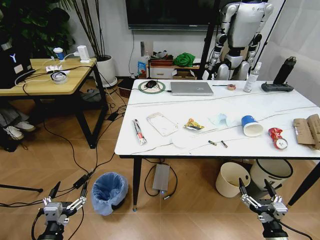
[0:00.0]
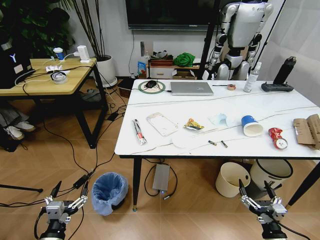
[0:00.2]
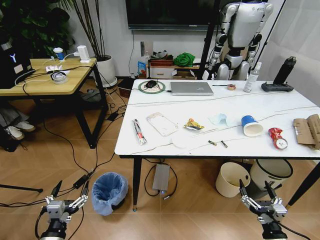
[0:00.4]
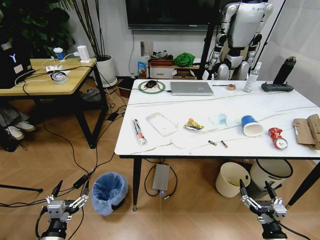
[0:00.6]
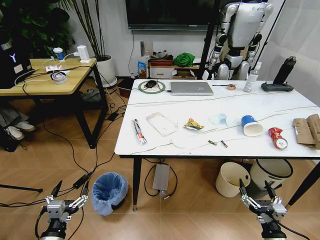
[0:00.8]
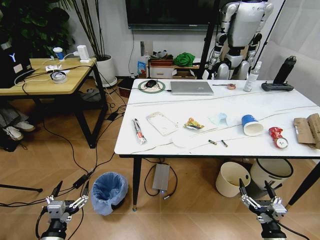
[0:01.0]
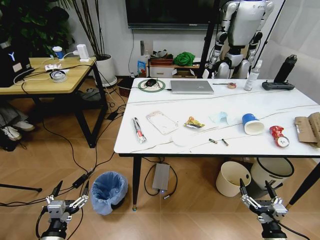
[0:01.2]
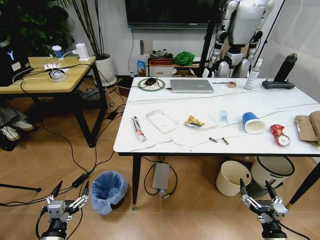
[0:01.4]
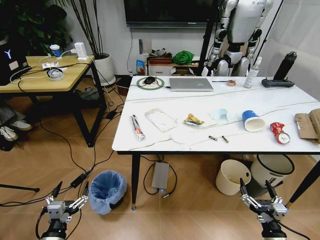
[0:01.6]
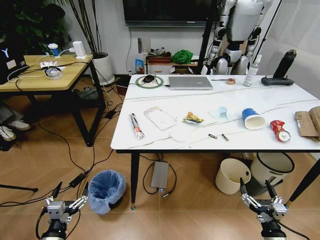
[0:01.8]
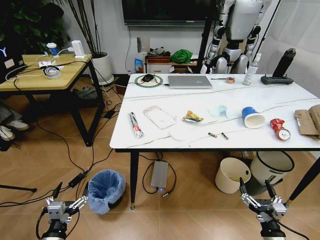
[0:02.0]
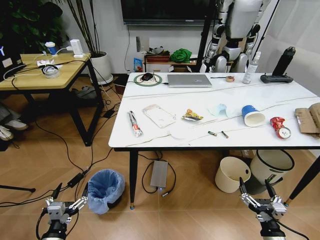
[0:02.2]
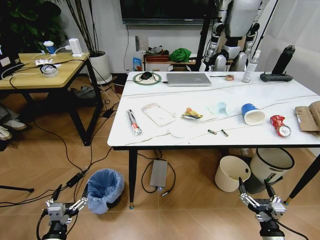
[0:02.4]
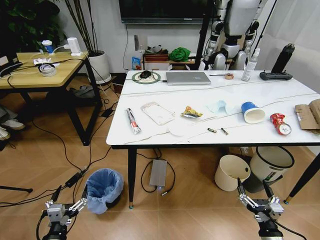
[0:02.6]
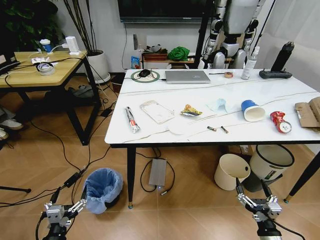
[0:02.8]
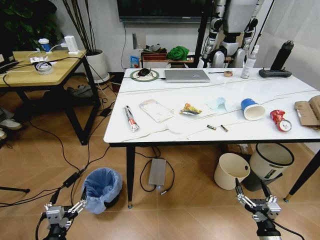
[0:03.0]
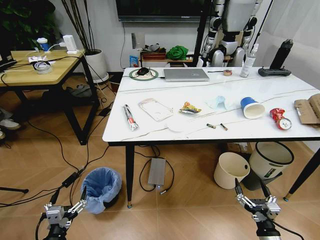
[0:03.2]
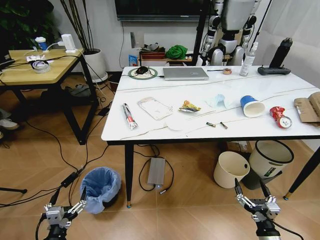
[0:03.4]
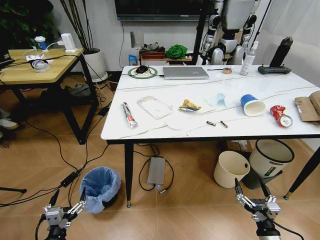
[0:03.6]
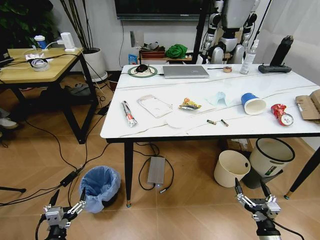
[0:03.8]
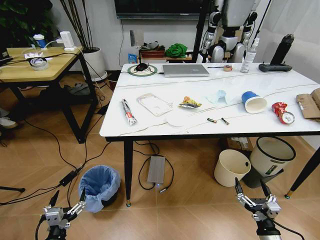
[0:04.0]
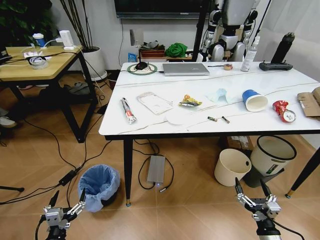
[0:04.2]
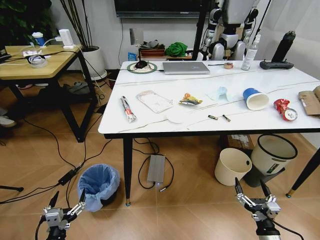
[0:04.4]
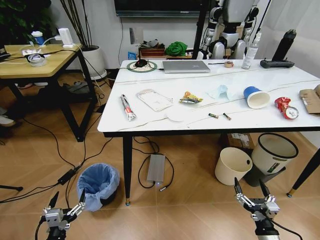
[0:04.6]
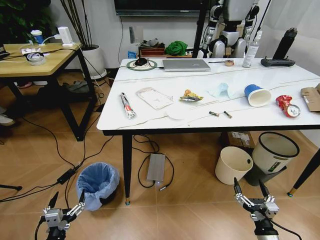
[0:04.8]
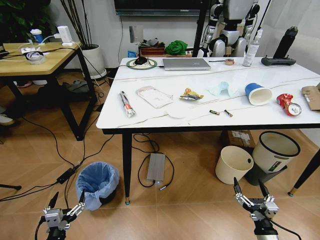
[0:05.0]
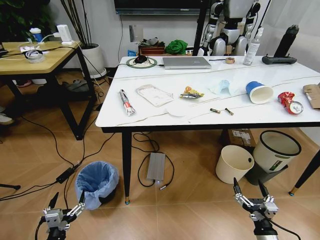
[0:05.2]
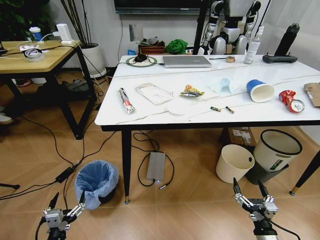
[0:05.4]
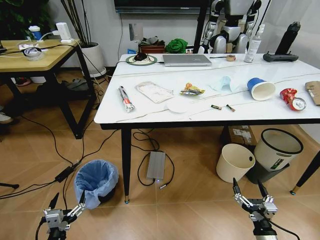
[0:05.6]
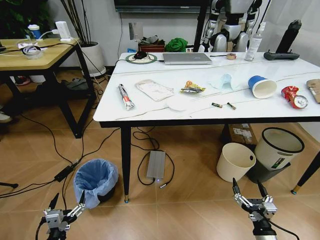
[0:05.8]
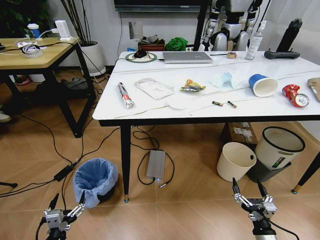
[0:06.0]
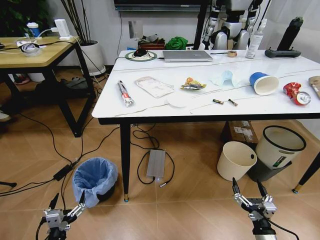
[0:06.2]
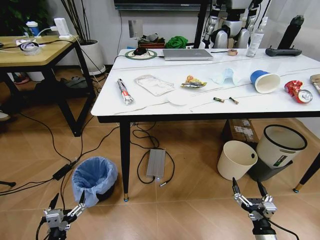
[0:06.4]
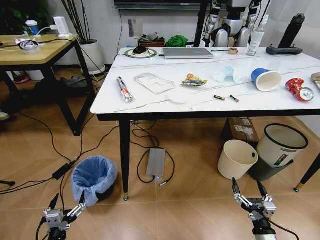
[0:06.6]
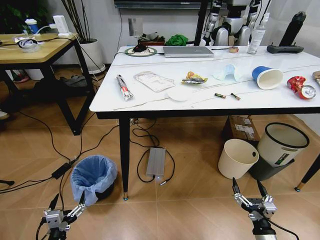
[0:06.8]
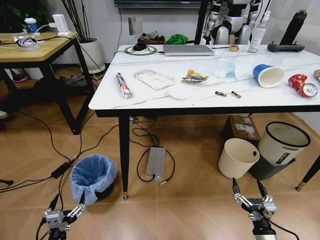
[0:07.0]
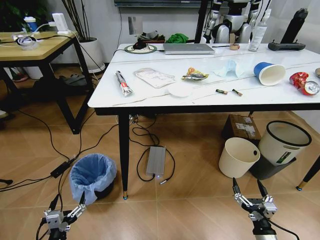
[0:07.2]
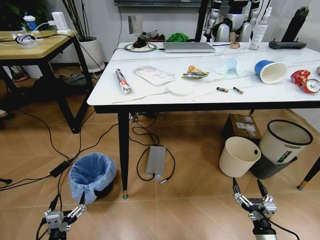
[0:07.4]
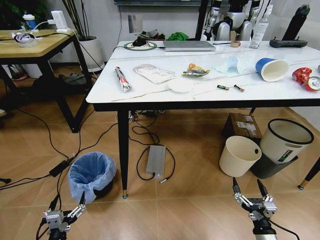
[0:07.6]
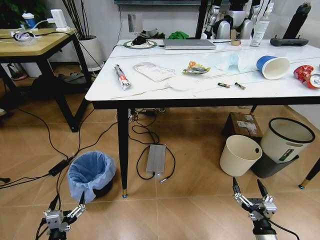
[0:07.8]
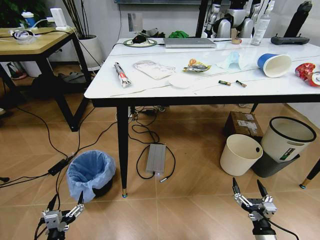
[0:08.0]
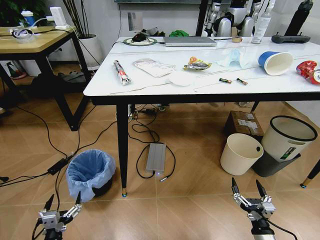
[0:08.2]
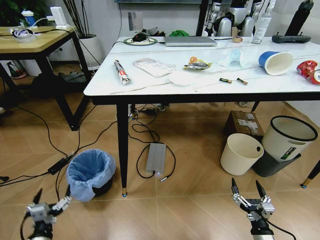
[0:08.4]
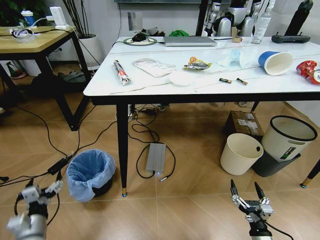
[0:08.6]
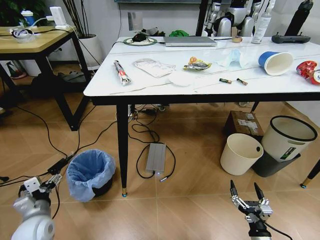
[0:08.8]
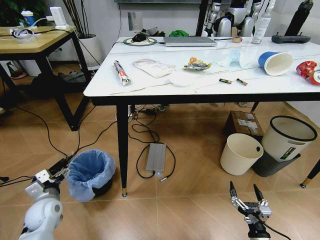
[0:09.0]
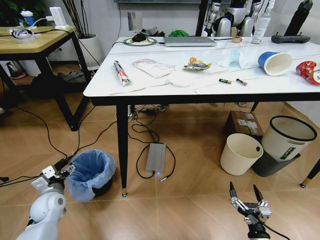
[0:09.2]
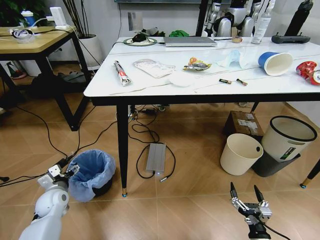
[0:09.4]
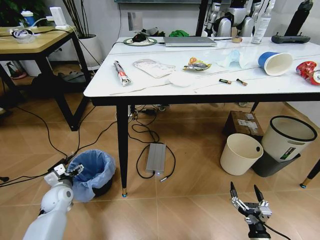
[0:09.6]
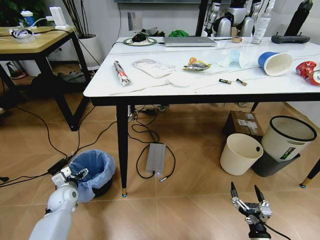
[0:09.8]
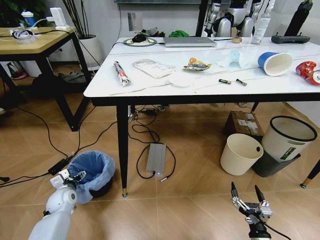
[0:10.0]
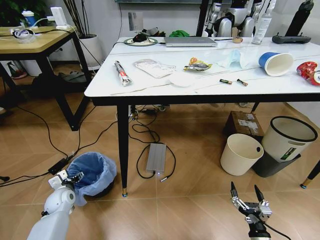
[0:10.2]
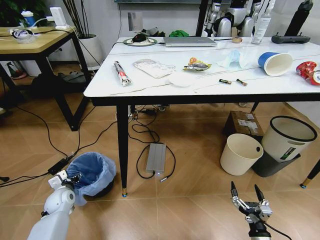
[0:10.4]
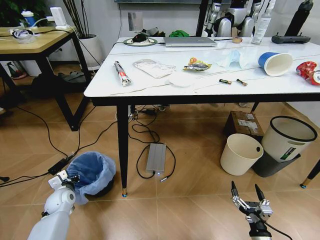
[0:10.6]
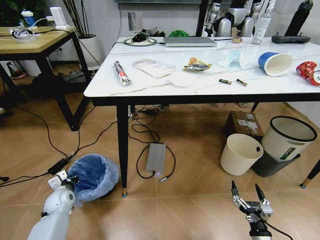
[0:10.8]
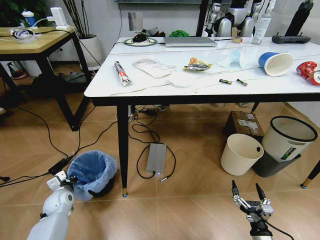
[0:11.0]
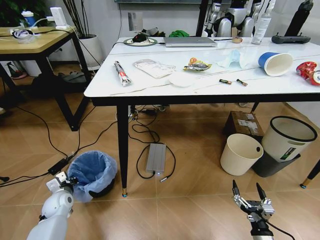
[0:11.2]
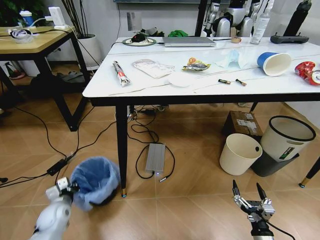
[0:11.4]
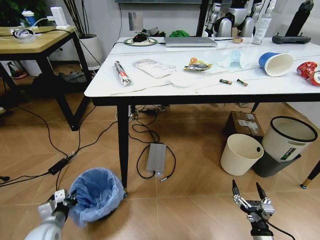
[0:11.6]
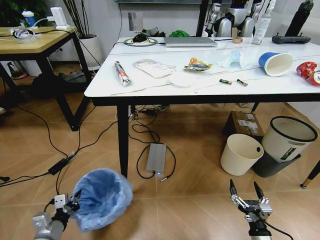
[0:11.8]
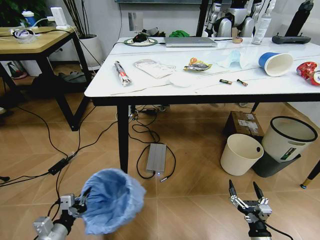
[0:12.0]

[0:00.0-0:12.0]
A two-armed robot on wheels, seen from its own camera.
Task of the whole recording: Pick up the trash bin and place the trash from the table into it.
0:07.6 to 0:09.0: The left gripper goes approximately 20 cm forward.
0:09.0 to 0:10.4: The left gripper moves forward and downward, approximately 10 cm.
0:10.4 to 0:12.0: The left gripper is displaced backward by about 20 cm, and closes up.

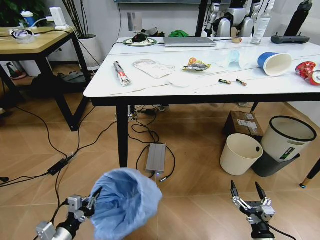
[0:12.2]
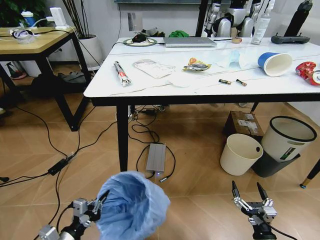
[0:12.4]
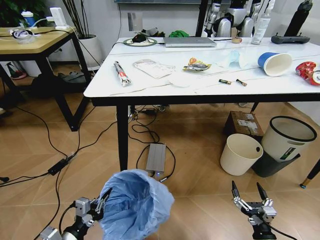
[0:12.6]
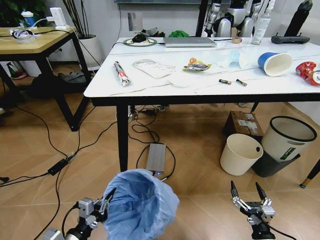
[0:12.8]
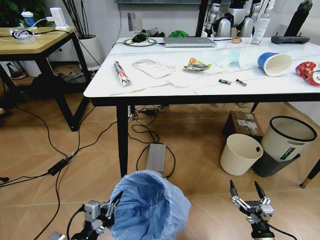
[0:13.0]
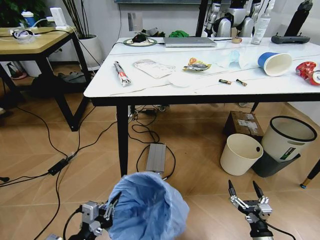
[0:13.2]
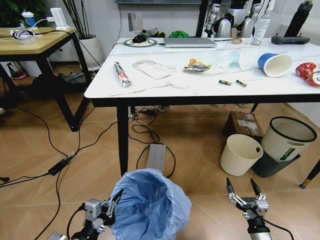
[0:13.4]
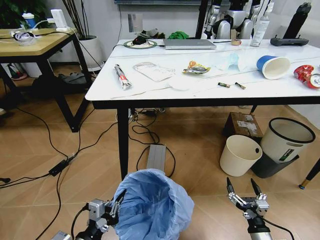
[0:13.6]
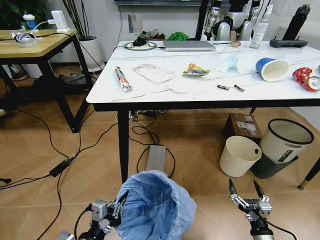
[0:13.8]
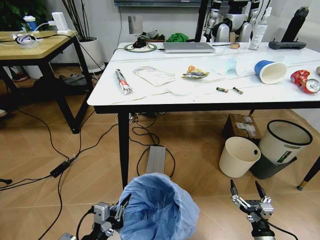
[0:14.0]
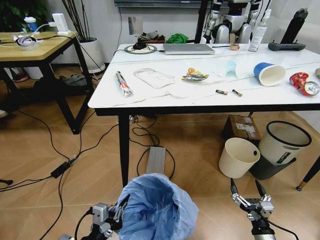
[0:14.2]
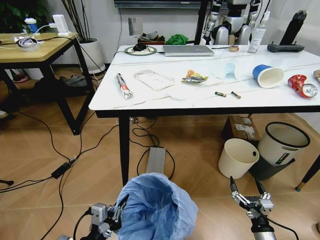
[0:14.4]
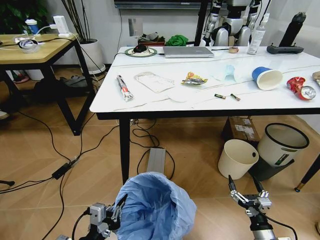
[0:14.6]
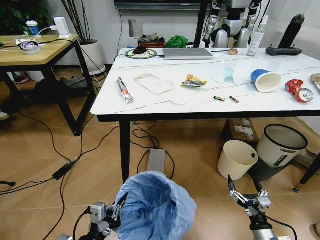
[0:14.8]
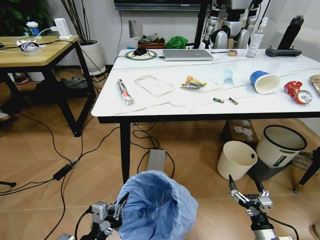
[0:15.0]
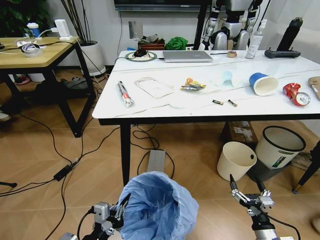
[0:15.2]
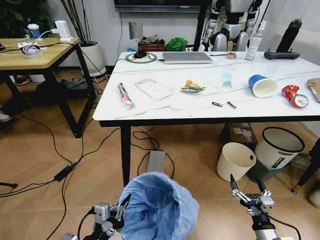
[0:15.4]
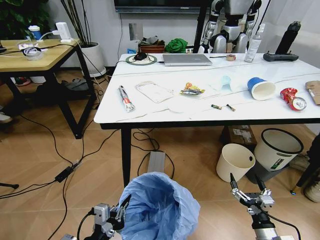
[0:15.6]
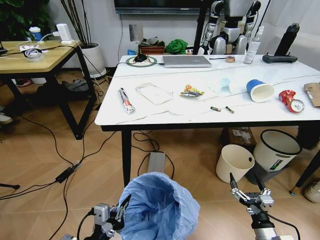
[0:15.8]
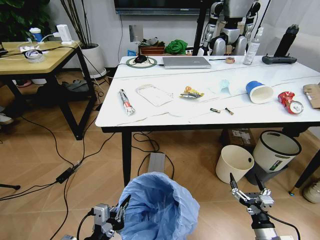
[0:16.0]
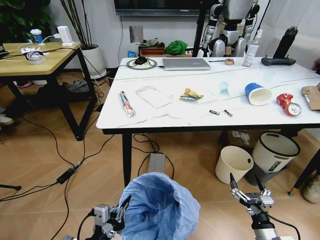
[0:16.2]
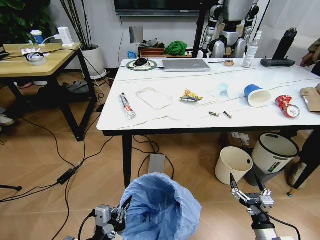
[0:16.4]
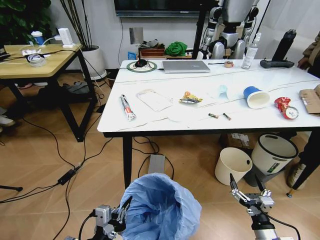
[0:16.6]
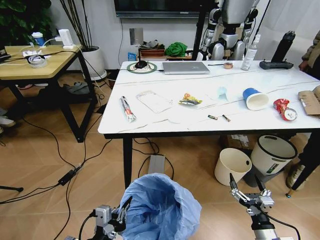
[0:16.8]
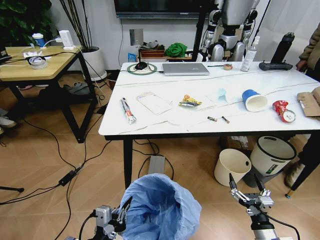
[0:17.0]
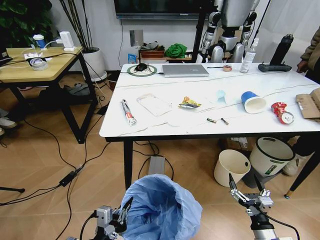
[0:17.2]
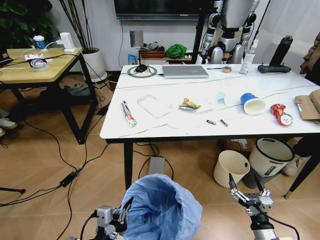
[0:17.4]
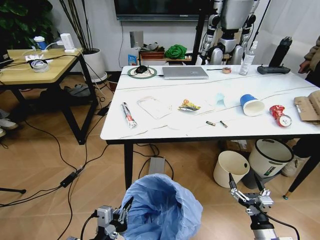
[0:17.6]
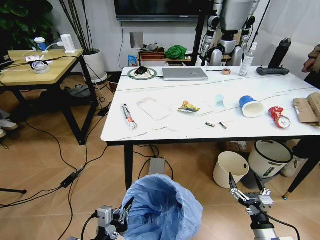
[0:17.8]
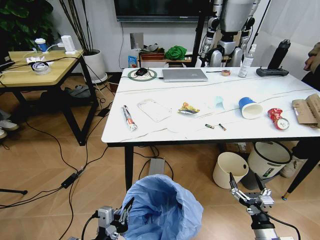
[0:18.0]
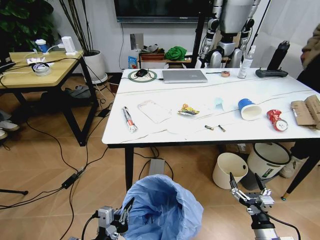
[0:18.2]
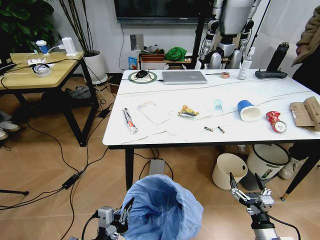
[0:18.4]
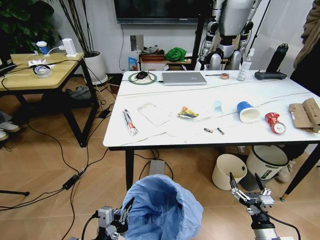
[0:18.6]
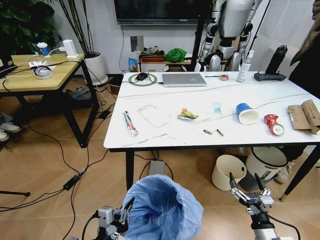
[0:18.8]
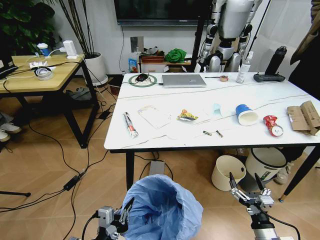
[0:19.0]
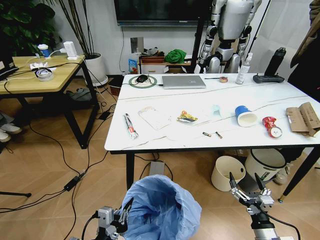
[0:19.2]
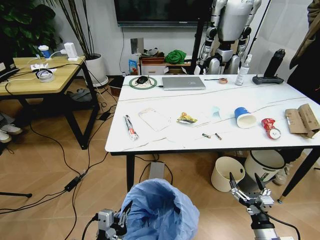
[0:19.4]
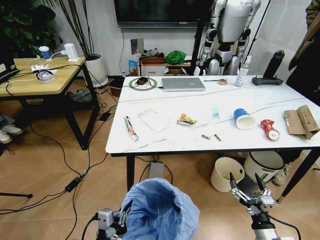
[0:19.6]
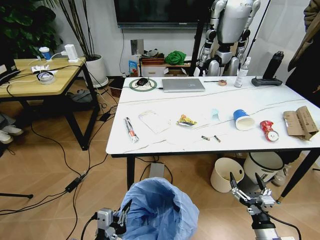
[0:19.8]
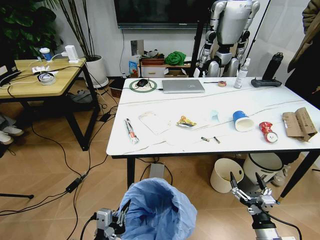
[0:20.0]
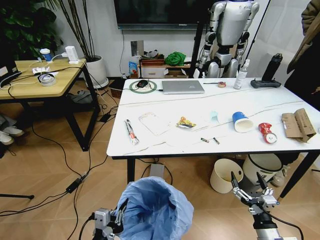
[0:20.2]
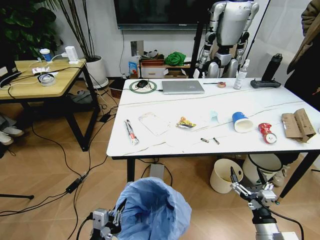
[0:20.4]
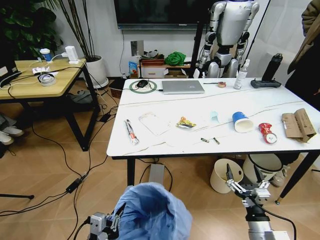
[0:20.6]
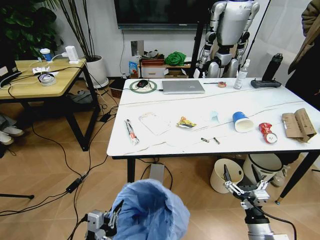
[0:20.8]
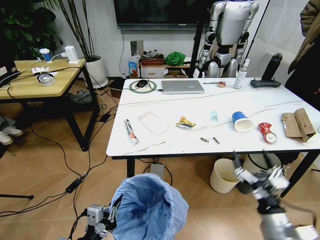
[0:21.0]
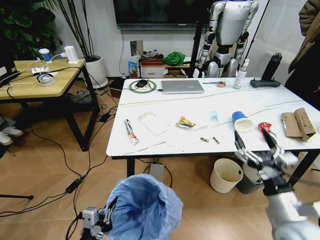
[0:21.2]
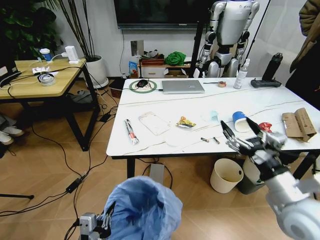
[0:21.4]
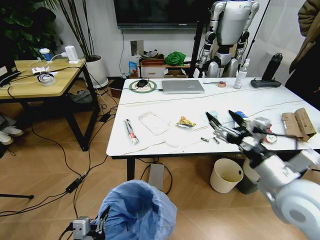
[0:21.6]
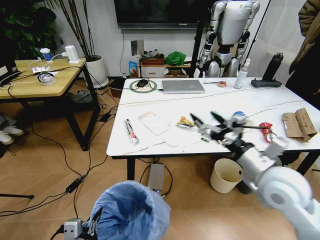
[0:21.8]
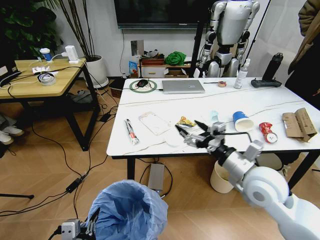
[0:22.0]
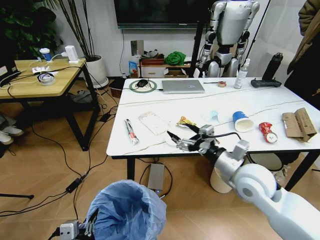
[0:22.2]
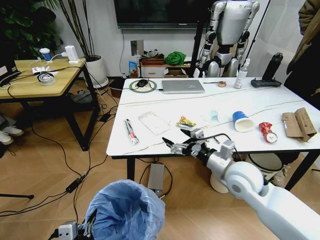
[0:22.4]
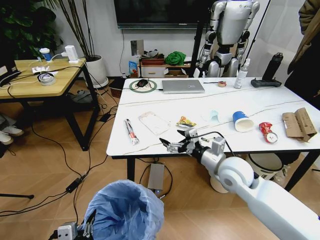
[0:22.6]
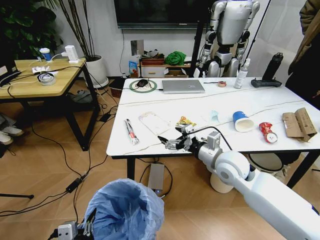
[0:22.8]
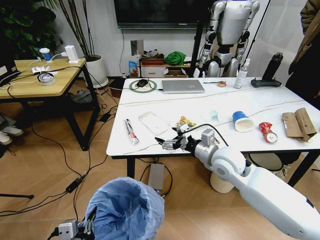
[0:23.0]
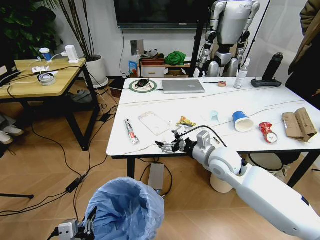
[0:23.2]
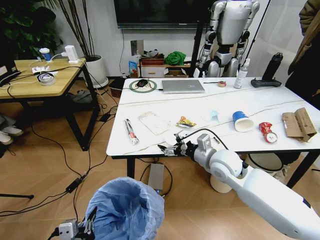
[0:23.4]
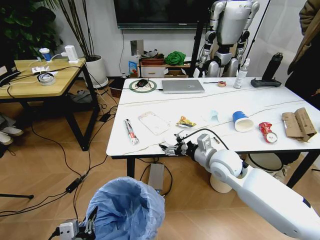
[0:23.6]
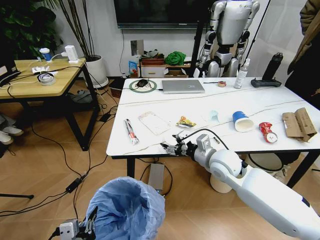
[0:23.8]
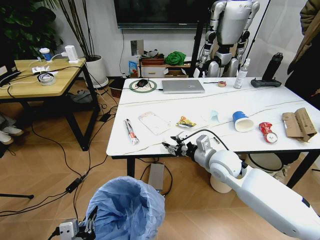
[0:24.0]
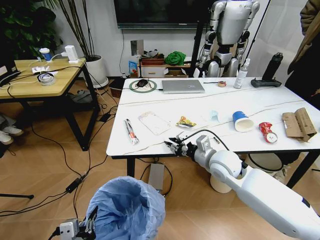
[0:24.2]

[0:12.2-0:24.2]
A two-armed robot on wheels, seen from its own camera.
Task of the whole recording: Pick up the trash bin and place the trash from the table into it.
0:12.2 to 0:13.8: The left gripper is displaced to the right and upward by approximately 10 cm.
0:19.8 to 0:21.2: The right gripper goes about 20 cm upward.
0:21.2 to 0:22.6: The right gripper moves forward and to the left, some 20 cm, while the left gripper shifts by approximately 5 cm.
0:22.6 to 0:24.2: The right gripper closes its fingers.
